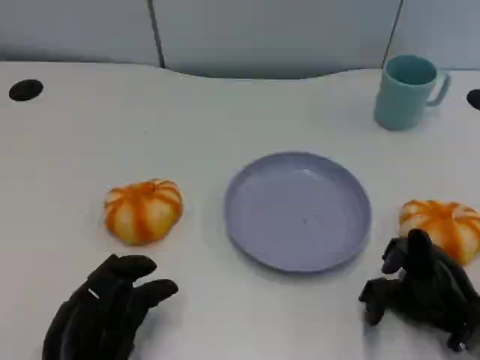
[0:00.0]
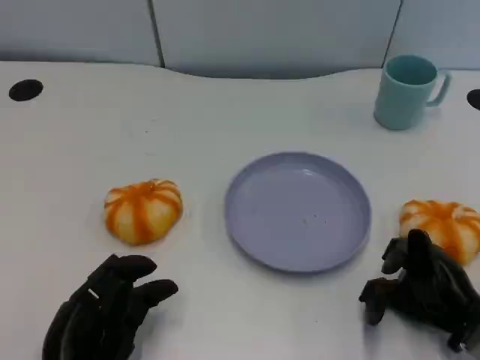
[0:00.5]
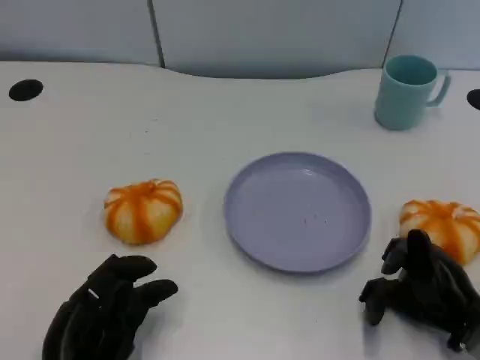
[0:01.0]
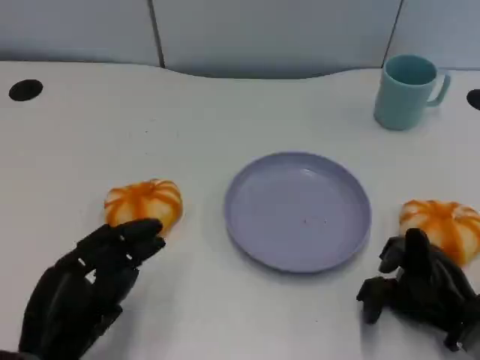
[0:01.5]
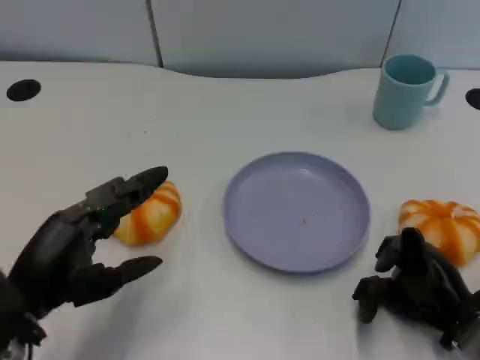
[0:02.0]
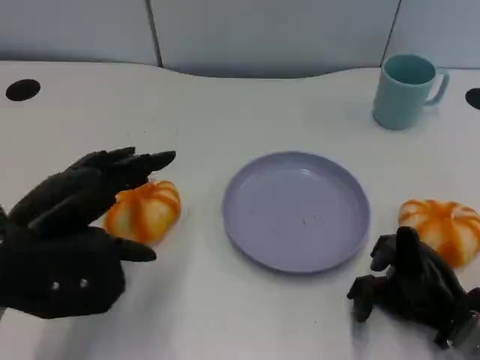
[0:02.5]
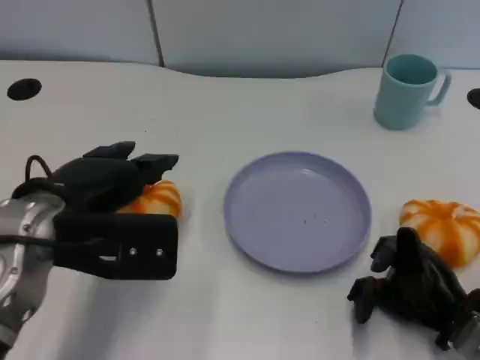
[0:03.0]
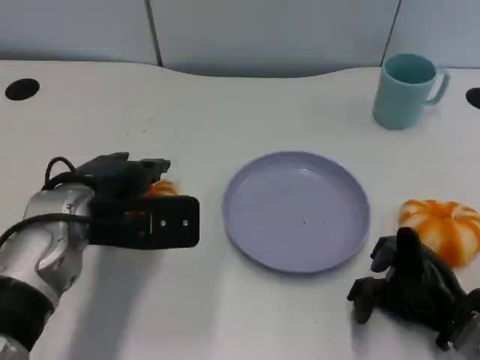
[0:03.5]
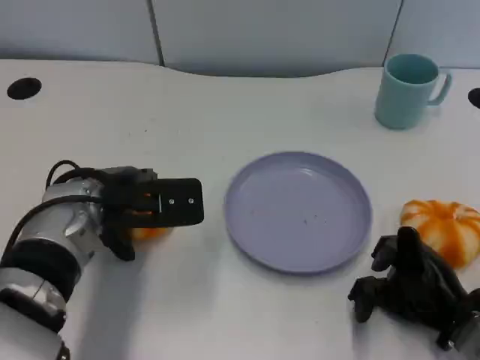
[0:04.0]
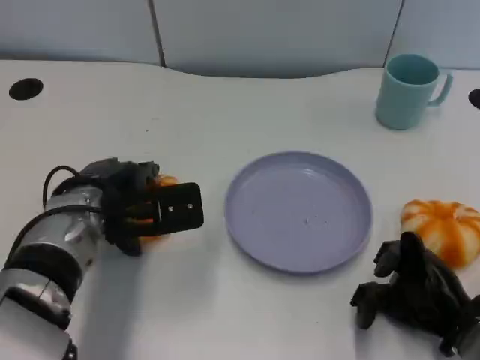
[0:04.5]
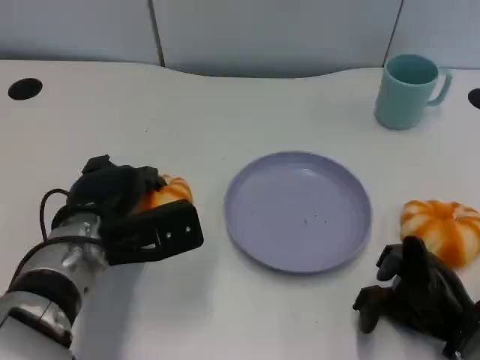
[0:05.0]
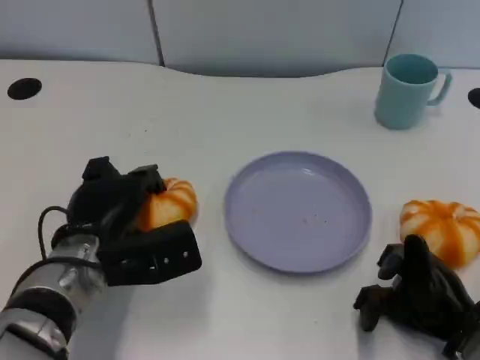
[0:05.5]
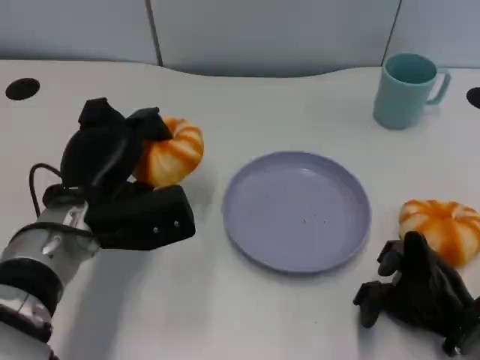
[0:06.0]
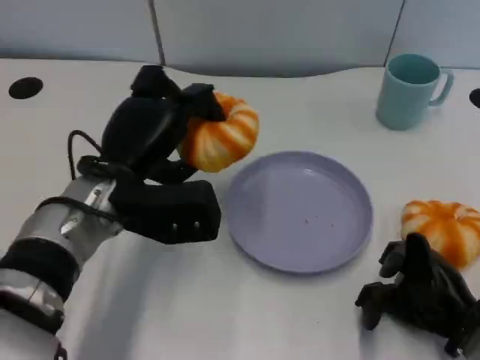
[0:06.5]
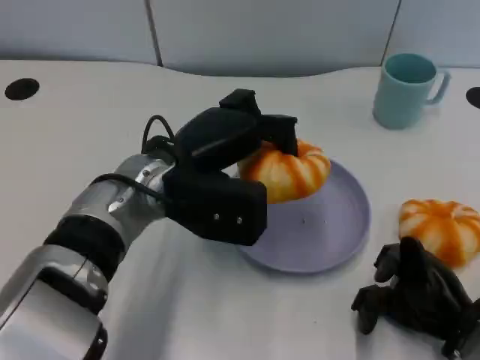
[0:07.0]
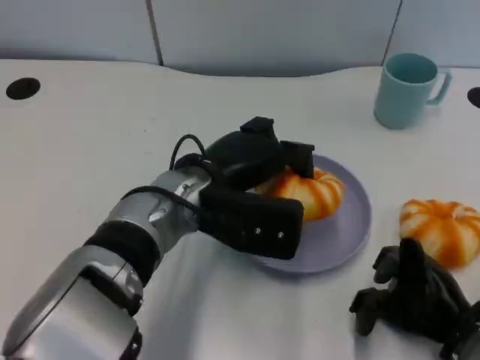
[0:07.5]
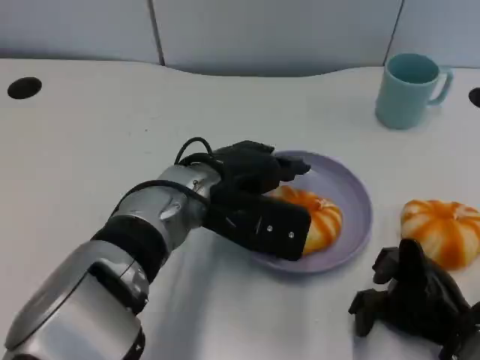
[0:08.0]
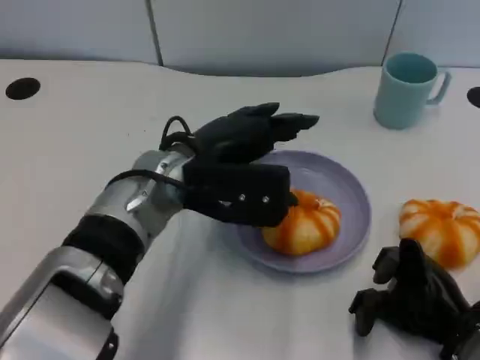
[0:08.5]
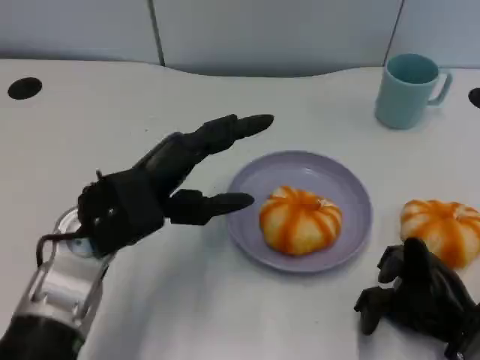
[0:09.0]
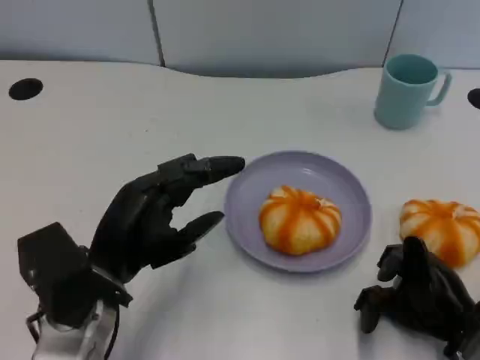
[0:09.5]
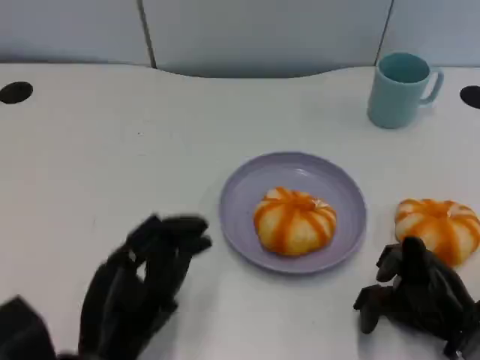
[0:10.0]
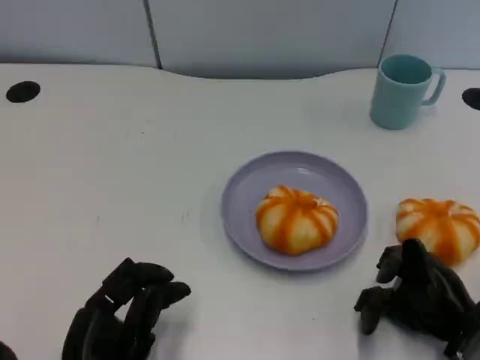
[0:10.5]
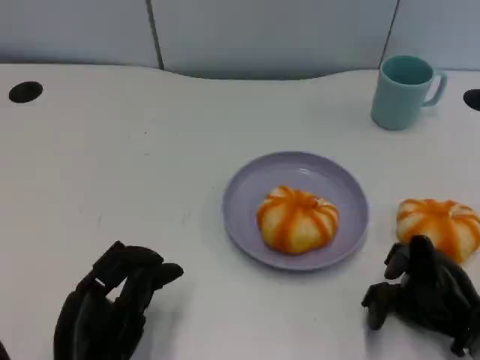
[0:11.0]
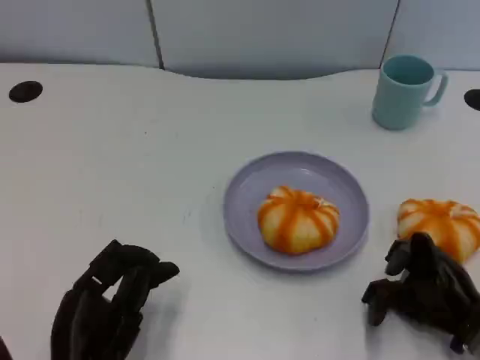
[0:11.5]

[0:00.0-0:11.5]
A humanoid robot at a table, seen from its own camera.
Task of the whole recording: Grasp the bread from the table and place it into the plate.
0.0 to 2.0 s: The left hand heads upward, covering approximately 10 cm.
2.0 to 4.0 s: The left hand shifts some 15 cm forward and to the right.
6.0 to 7.5 s: The left hand heads to the right, covering roughly 10 cm.
7.5 to 9.5 s: The left hand moves to the left and backward, about 15 cm.
9.5 to 11.5 s: The left hand is displaced backward and downward by roughly 10 cm.

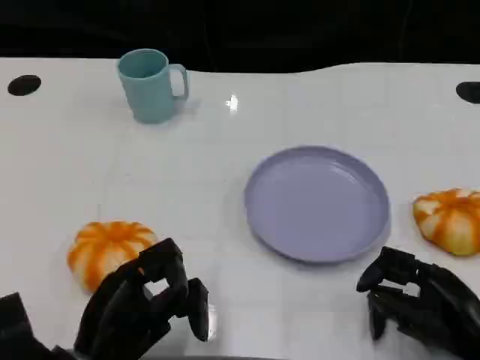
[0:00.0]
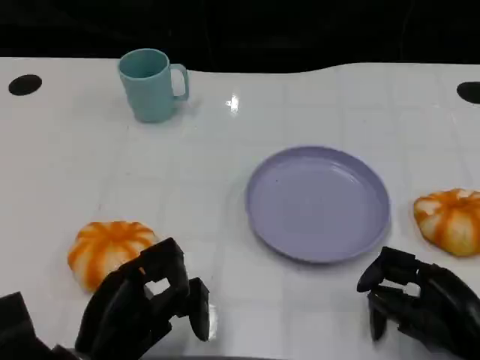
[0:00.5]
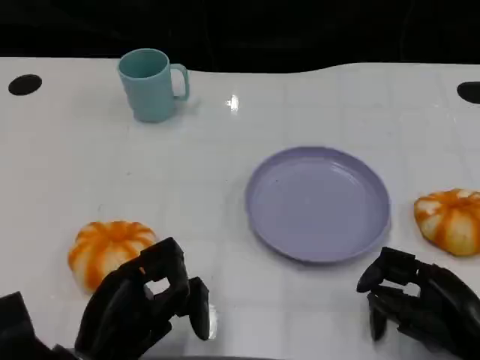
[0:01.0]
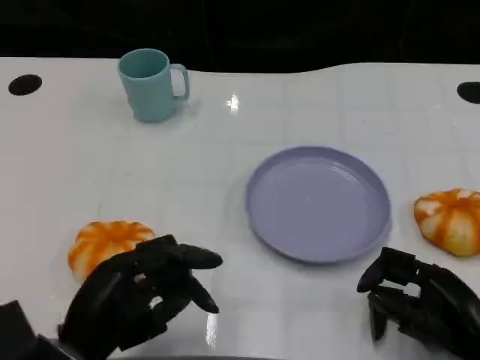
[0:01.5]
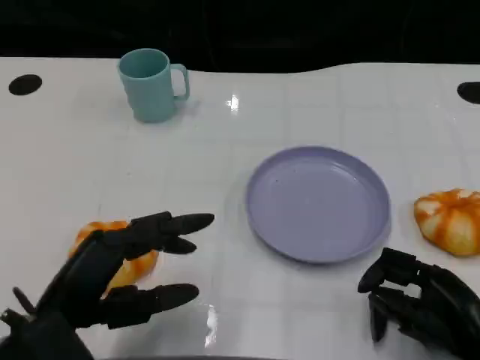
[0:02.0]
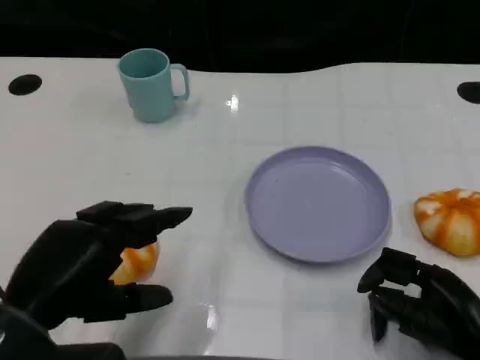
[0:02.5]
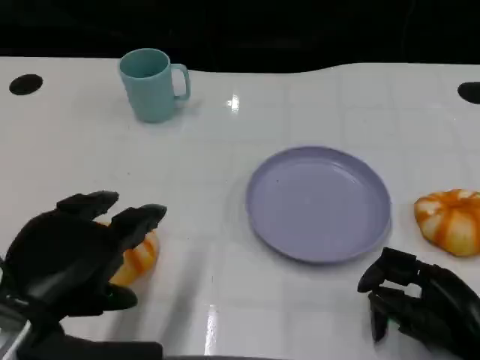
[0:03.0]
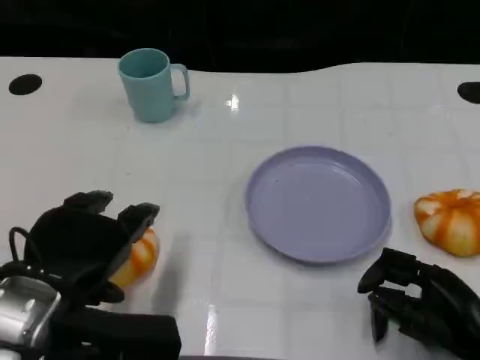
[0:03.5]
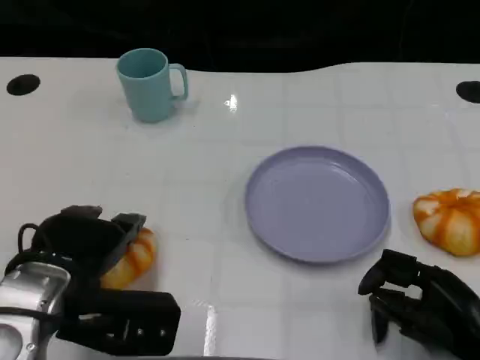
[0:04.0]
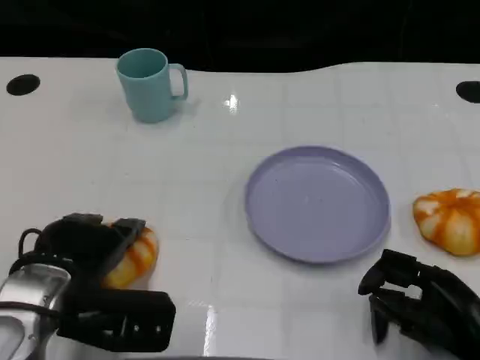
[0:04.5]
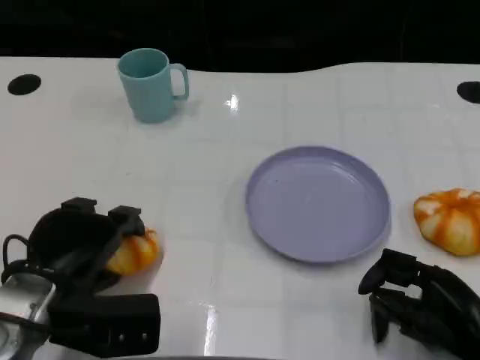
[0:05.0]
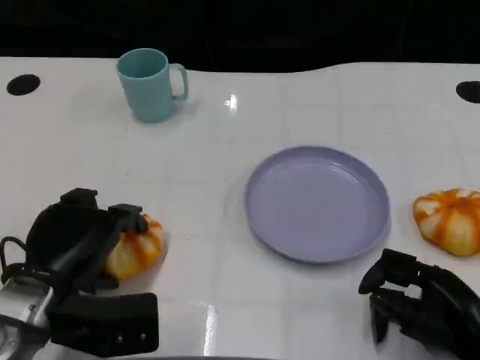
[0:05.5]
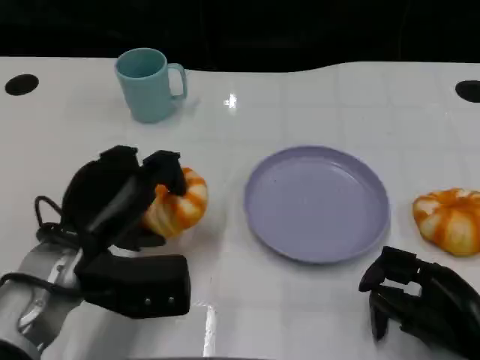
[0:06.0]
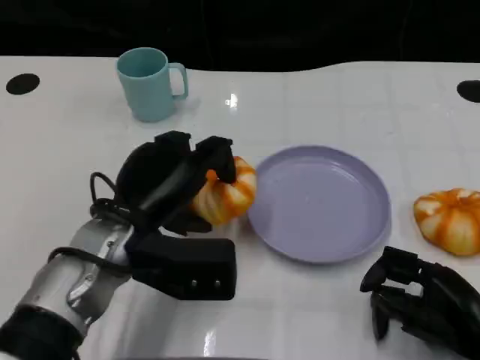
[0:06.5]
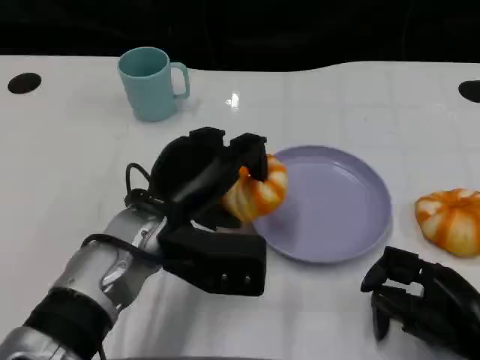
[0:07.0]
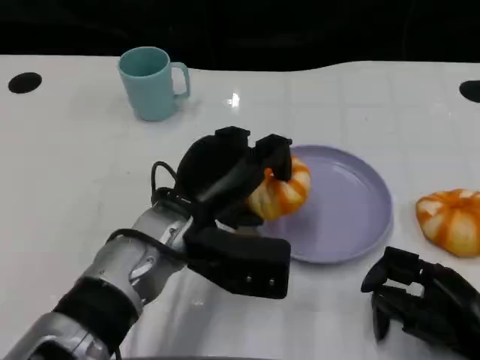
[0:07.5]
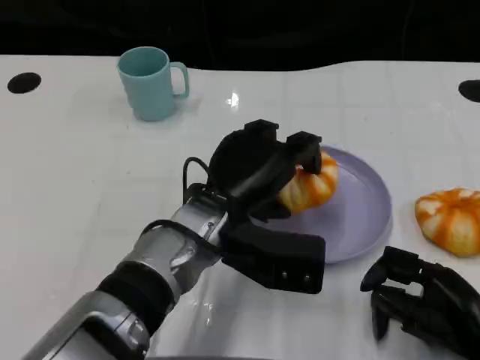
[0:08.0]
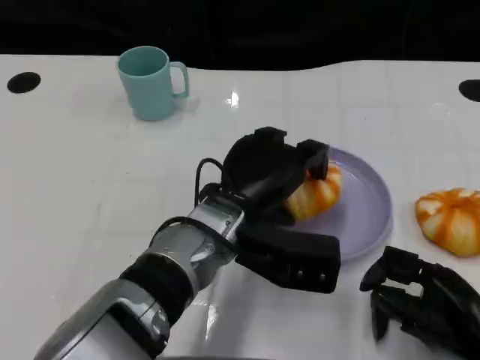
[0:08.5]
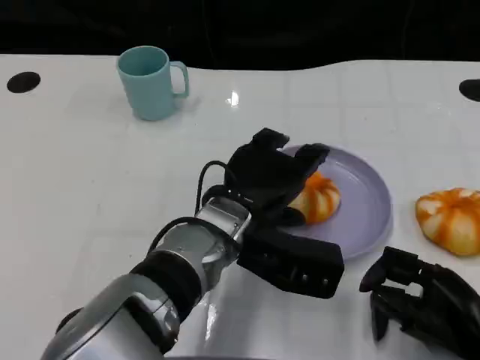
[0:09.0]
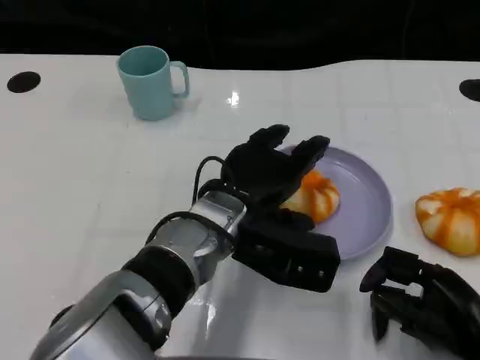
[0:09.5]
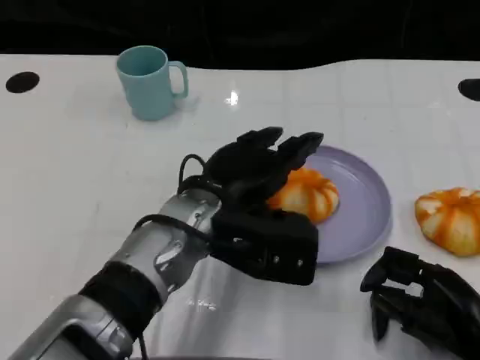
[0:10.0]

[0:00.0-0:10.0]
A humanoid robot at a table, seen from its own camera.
Task of the whole recording: Grasp the bread from the table and place it into the plate.
0.0 to 2.0 s: The left hand shifts roughly 5 cm upward.
2.0 to 4.0 s: The left hand shifts roughly 5 cm forward.
6.0 to 8.0 s: The left hand heads to the right, covering approximately 15 cm.
8.0 to 10.0 s: There are only small adjustments of the hands.

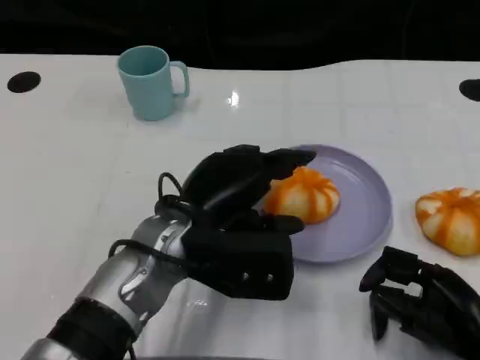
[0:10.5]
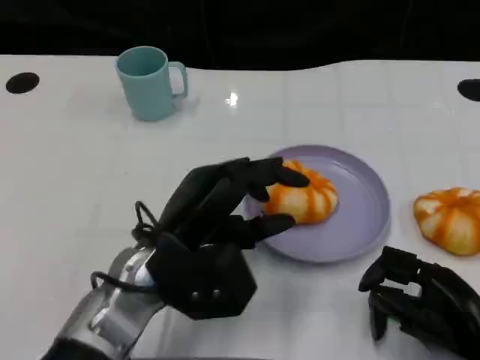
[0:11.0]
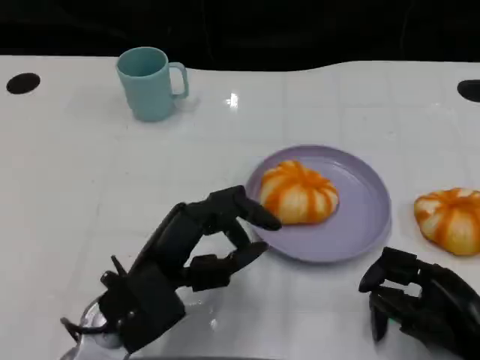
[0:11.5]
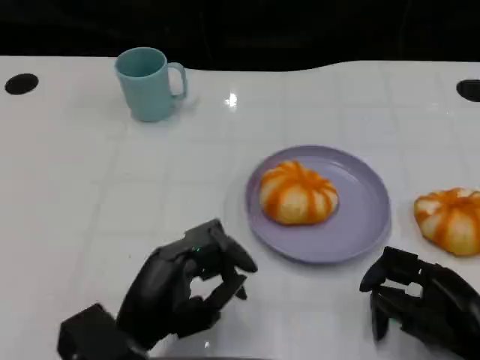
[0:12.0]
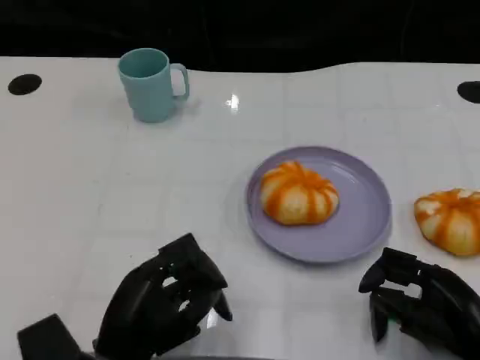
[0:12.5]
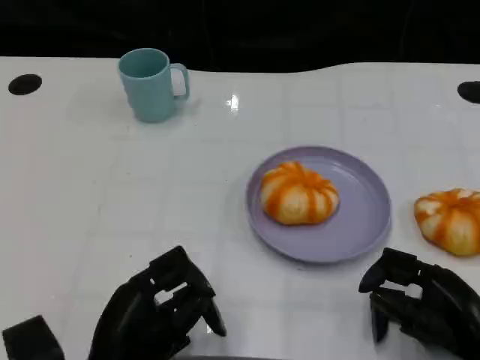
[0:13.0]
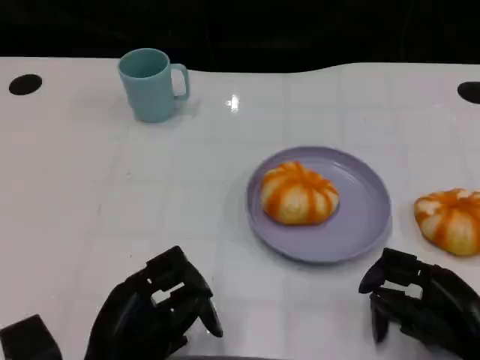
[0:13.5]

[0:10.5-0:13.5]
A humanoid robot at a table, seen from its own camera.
Task of the whole recording: Grasp the bread from the table and place it into the plate.
10.5 to 12.0 s: The left hand moves backward, to the left and downward, about 15 cm.

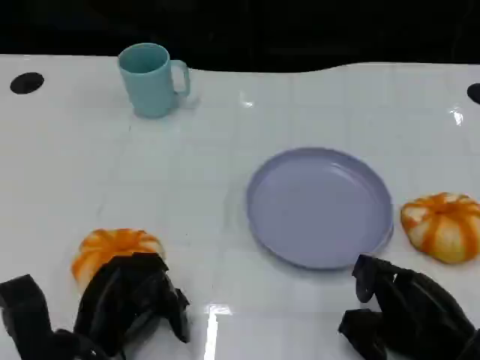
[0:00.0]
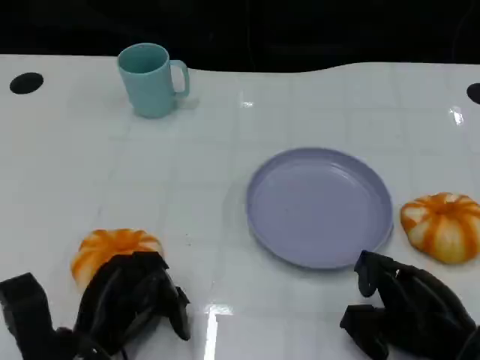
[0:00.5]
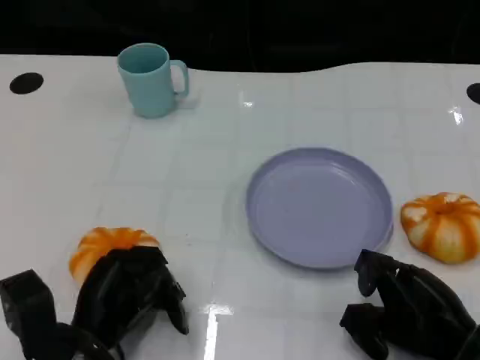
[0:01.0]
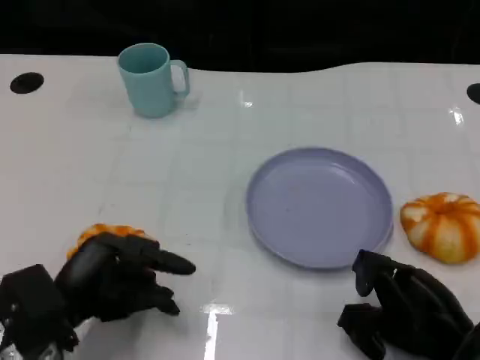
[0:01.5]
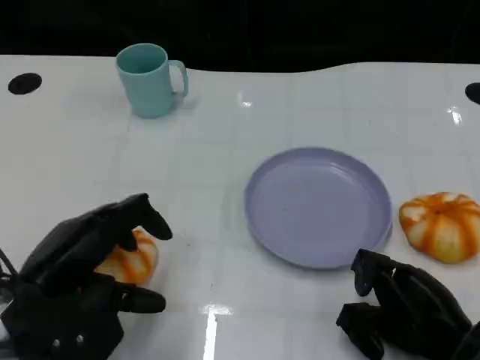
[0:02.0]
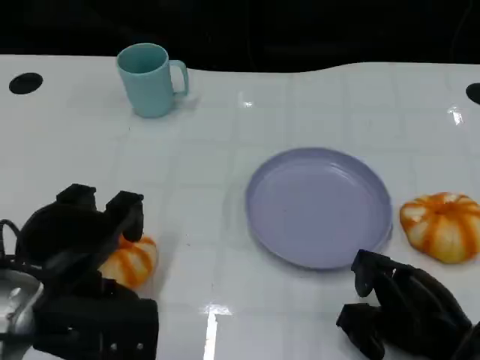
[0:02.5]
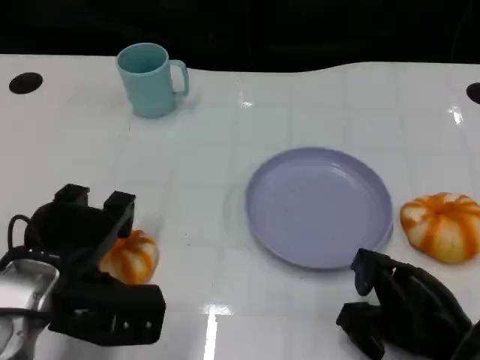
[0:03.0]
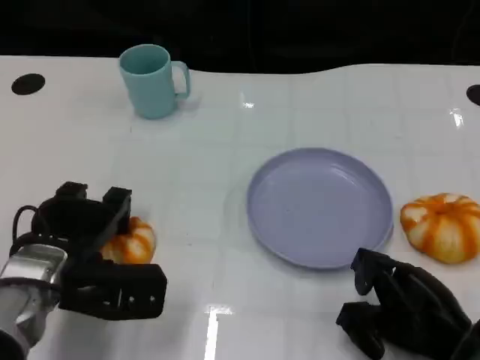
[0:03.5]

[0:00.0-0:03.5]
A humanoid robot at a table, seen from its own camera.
Task of the whole recording: Grasp the bread from the table and place it into the plate.
0.0 to 2.0 s: The left hand moves upward, roughly 10 cm.
2.0 to 3.5 s: The left hand heads forward, covering approximately 5 cm.
